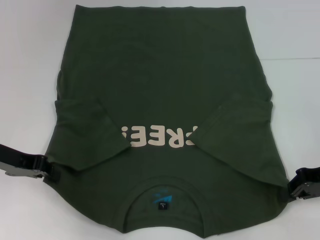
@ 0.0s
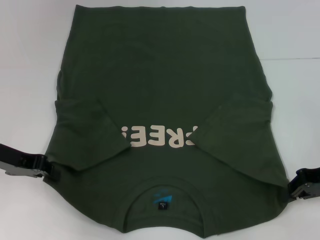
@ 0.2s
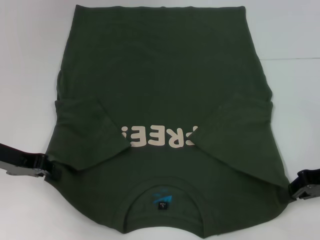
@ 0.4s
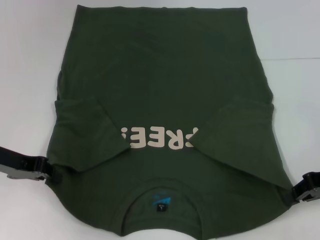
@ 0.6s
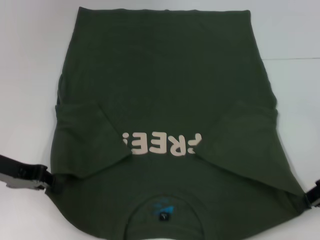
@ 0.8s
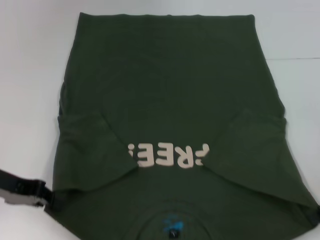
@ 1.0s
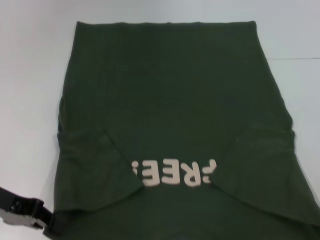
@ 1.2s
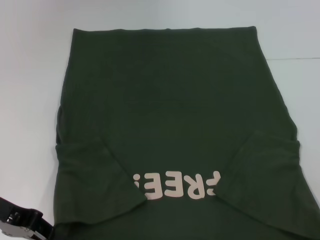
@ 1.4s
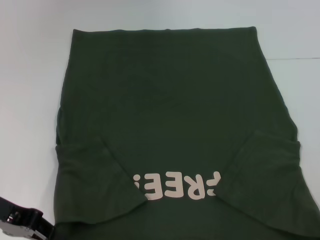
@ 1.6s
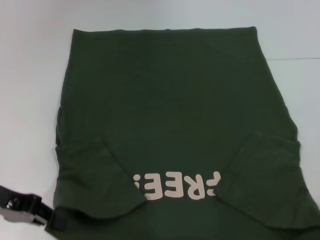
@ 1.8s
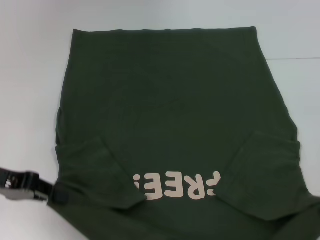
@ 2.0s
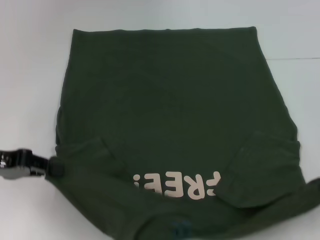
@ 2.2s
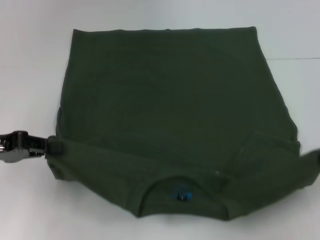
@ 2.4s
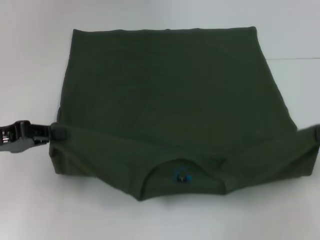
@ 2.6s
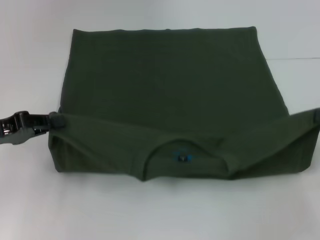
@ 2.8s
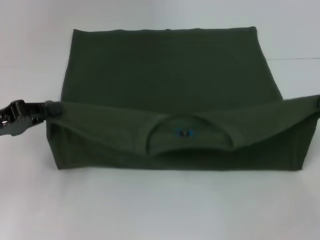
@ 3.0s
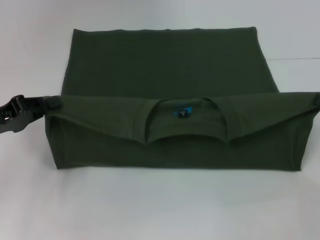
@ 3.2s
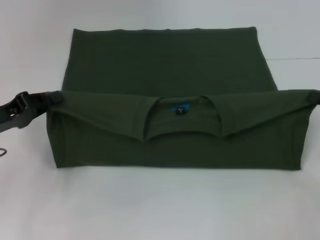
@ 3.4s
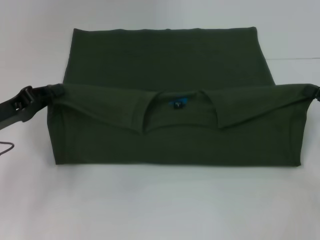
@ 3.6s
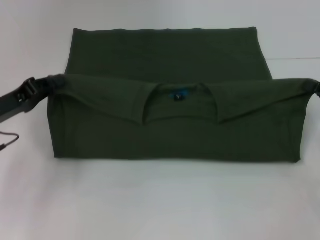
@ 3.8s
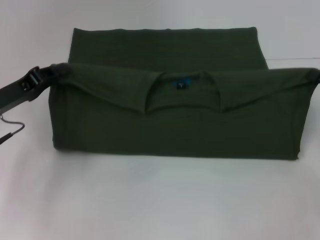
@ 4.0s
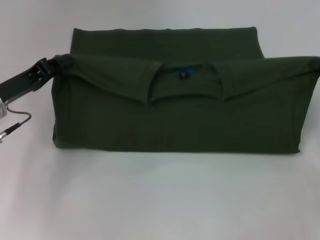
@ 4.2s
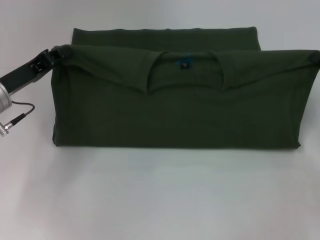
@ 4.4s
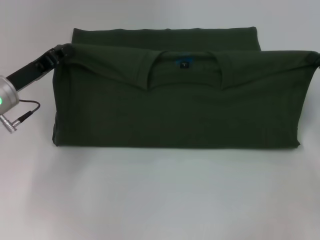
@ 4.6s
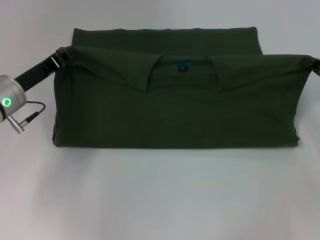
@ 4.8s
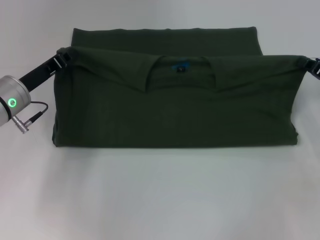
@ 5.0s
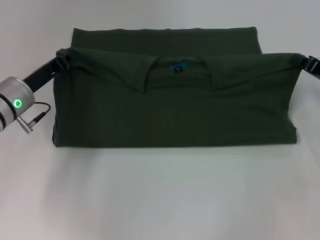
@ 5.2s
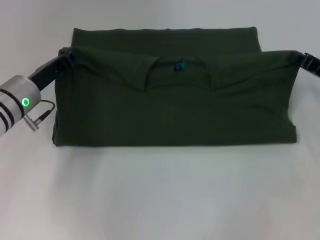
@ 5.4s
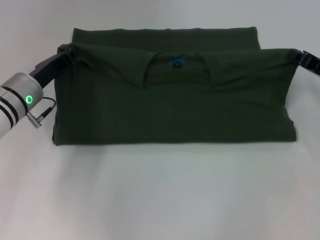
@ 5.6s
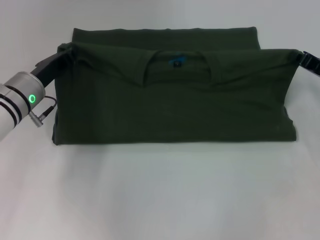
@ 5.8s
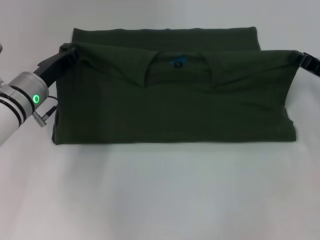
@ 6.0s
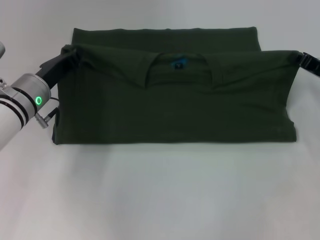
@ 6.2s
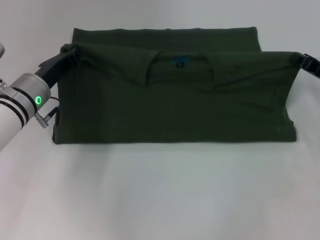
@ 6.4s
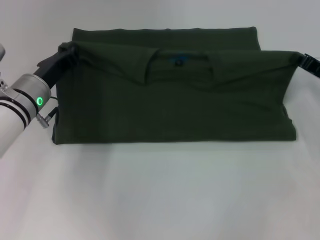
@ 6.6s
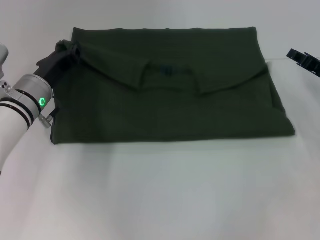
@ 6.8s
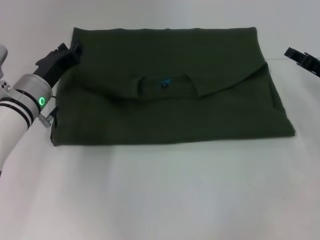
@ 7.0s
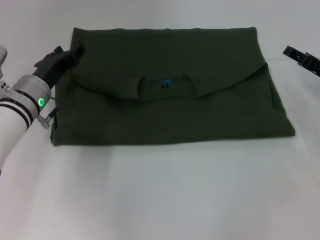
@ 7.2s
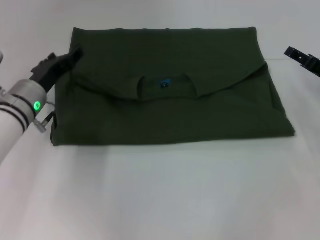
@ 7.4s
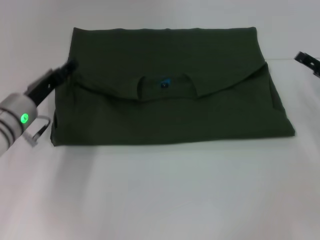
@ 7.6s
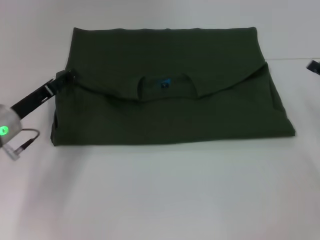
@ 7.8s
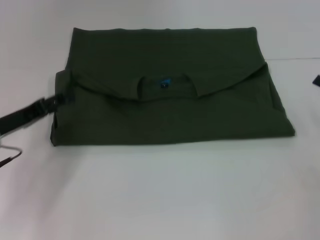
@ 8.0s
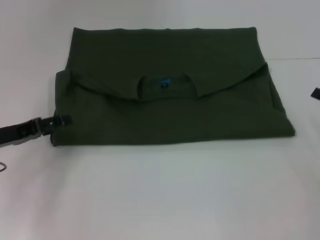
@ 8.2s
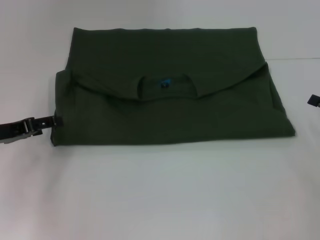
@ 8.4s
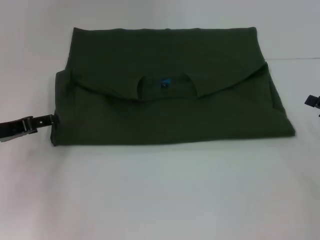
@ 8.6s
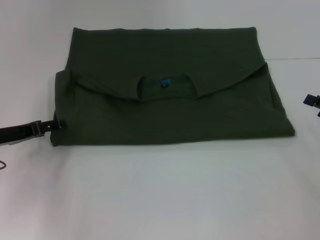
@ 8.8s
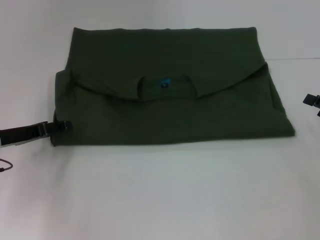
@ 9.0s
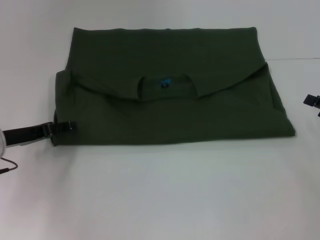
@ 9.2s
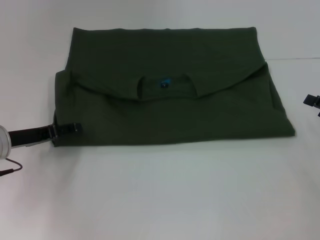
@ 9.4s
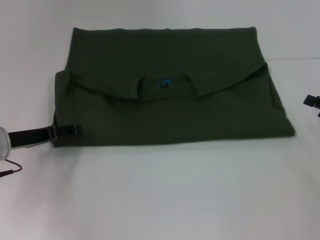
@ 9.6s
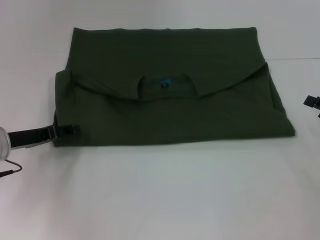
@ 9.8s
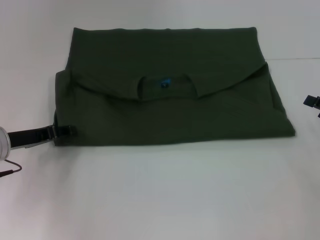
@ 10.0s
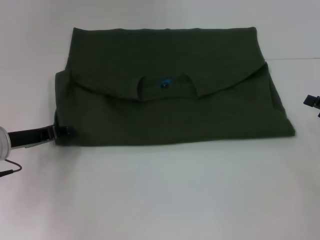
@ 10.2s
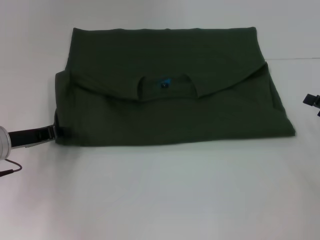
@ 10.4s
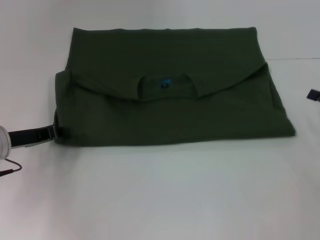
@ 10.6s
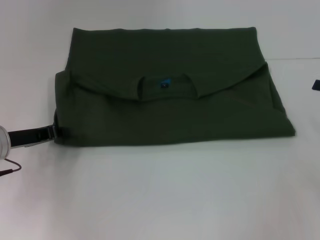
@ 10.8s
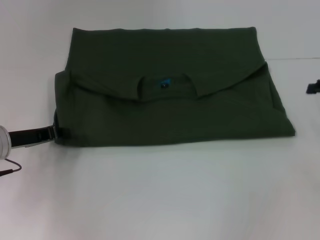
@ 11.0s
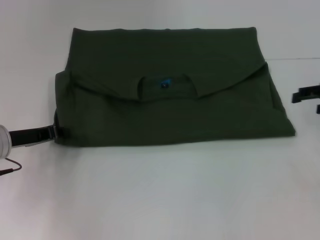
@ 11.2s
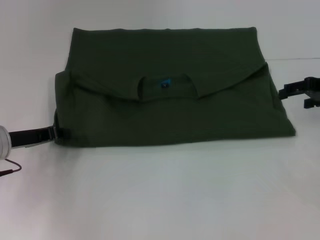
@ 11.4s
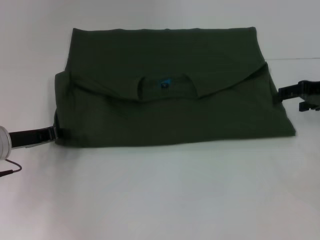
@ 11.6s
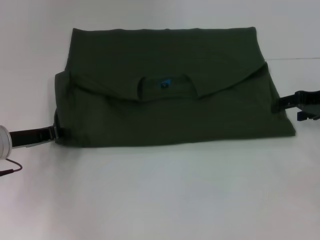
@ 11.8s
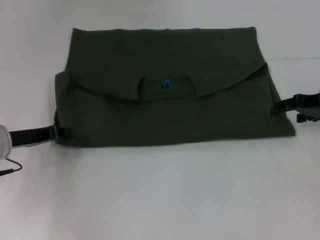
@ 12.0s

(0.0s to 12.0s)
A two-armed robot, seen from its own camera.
Step, 0.8s - 7.0s: Fold the clothes with your left hand.
Step, 0.8s - 7.0s: Fold the clothes with your right hand.
0.0s - 1.6s: The right gripper shifts by some 5 cm. Meanwhile the left gripper moves backward, roughly 5 cm.
1.6s - 3.0s: The right gripper shifts by about 5 cm.
3.0s - 4.4s: The right gripper shifts by approximately 5 cm; the left gripper is displaced forward and to the right by approximately 10 cm.
4.4s - 6.0s: The right gripper shifts by approximately 5 cm, while the left gripper moves to the right, approximately 5 cm.
6.0s - 7.6s: The right gripper opens its fingers, while the left gripper opens its fingers.
7.6s - 9.0s: The left gripper shifts about 5 cm to the left. The right gripper is displaced backward by approximately 5 cm.
9.0s - 10.4s: The left gripper closes its fingers.
10.4s - 12.0s: The right gripper shifts approximately 15 cm forward, upward and to the left.

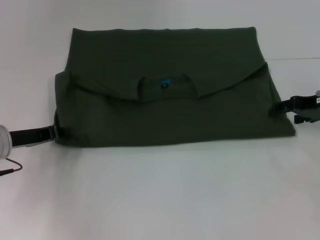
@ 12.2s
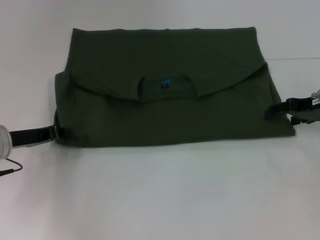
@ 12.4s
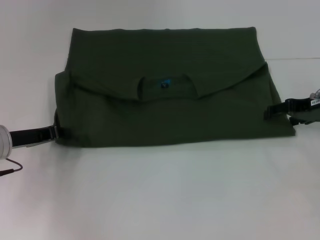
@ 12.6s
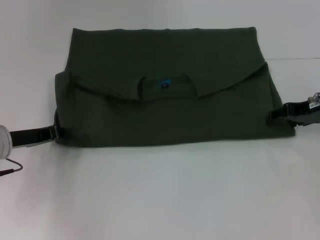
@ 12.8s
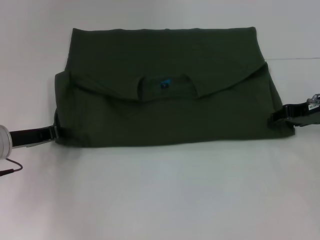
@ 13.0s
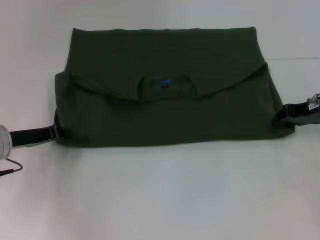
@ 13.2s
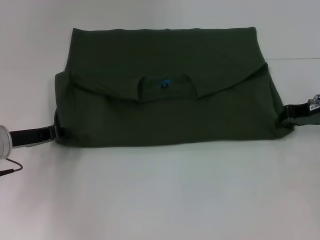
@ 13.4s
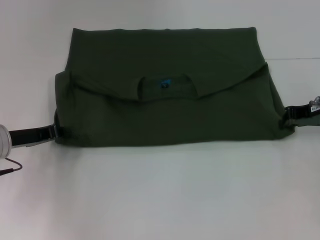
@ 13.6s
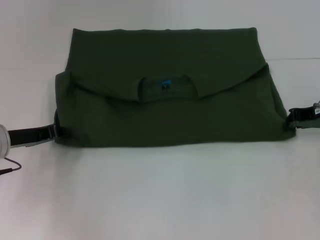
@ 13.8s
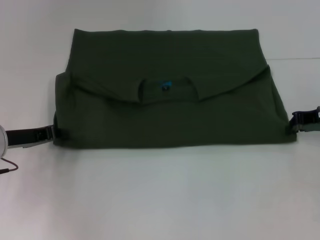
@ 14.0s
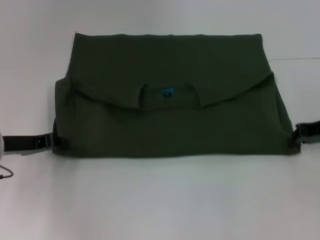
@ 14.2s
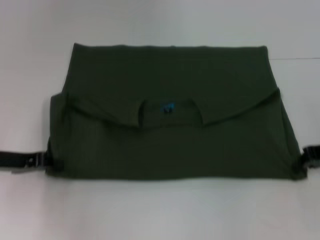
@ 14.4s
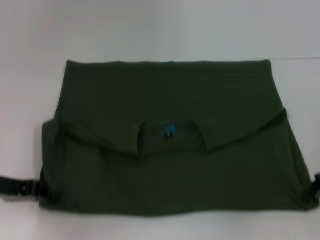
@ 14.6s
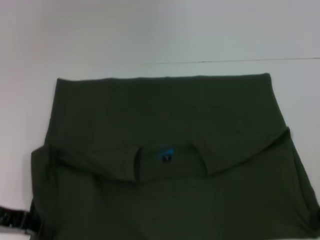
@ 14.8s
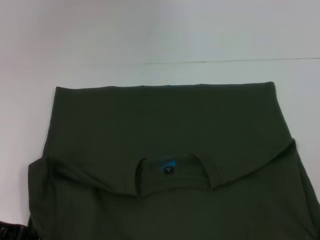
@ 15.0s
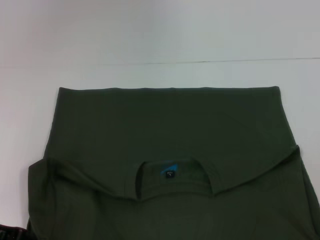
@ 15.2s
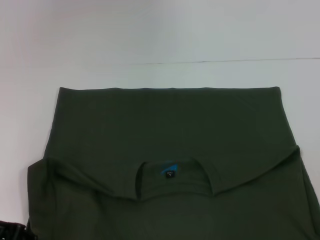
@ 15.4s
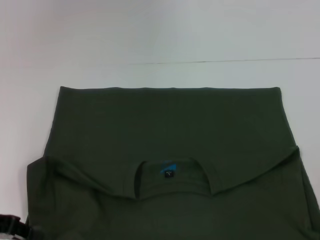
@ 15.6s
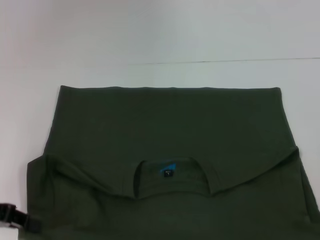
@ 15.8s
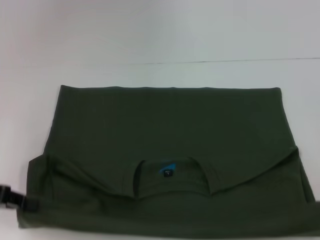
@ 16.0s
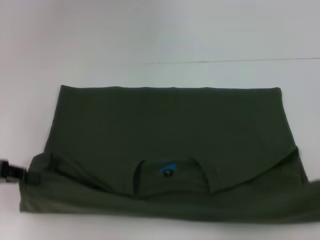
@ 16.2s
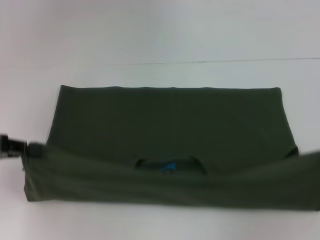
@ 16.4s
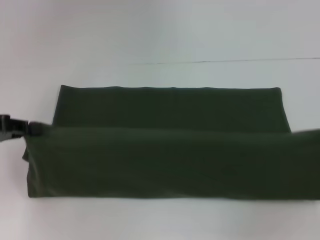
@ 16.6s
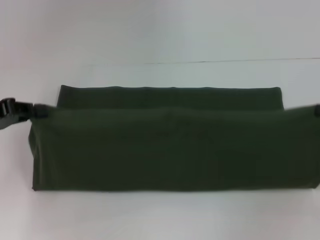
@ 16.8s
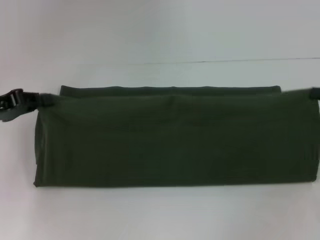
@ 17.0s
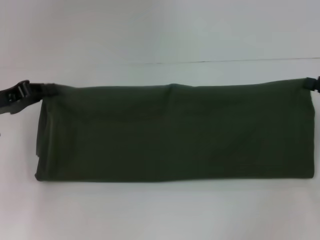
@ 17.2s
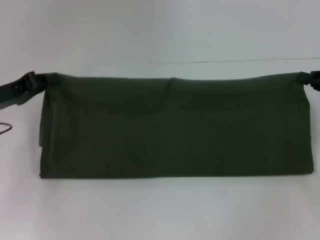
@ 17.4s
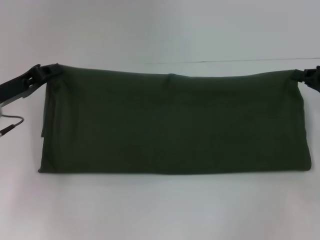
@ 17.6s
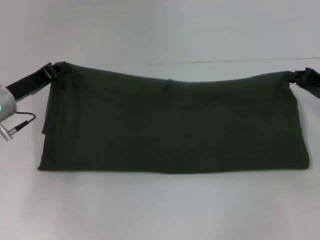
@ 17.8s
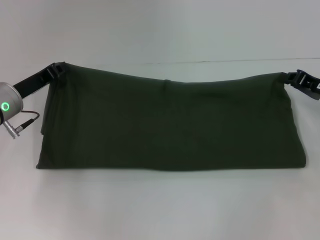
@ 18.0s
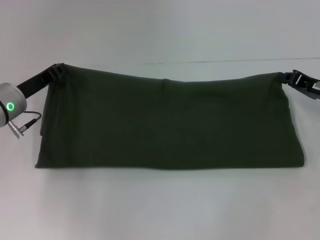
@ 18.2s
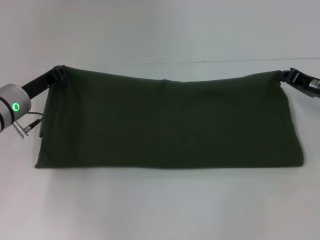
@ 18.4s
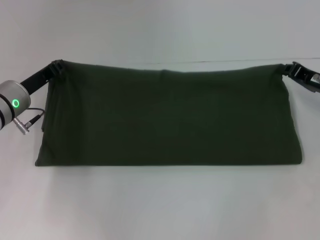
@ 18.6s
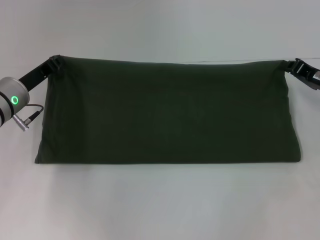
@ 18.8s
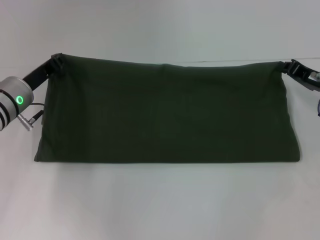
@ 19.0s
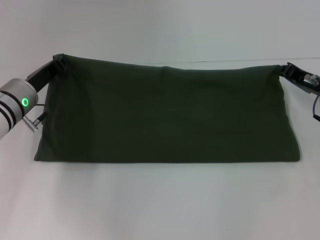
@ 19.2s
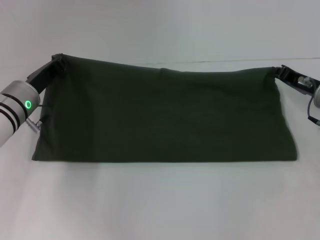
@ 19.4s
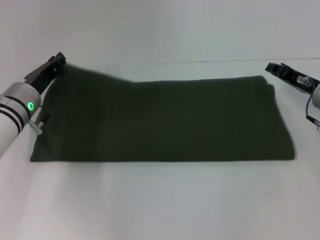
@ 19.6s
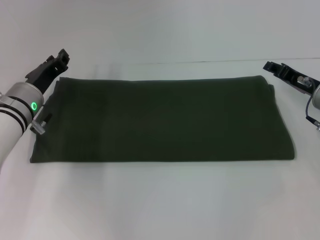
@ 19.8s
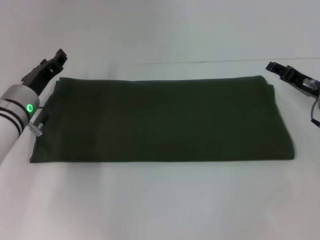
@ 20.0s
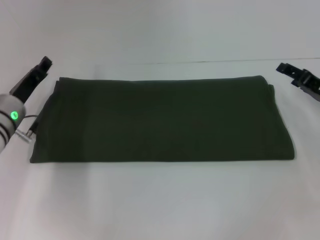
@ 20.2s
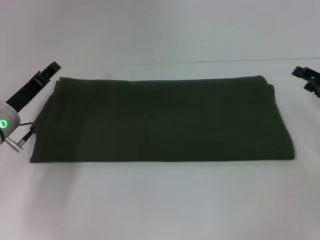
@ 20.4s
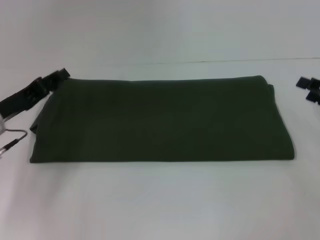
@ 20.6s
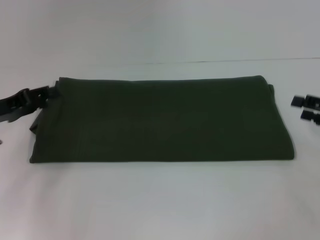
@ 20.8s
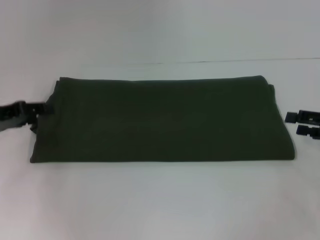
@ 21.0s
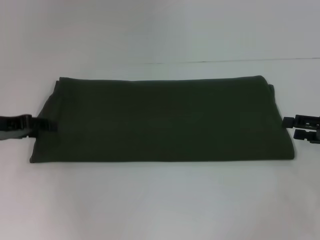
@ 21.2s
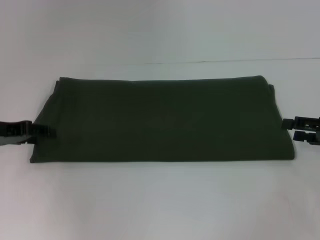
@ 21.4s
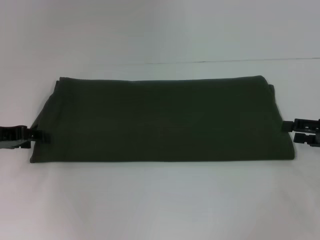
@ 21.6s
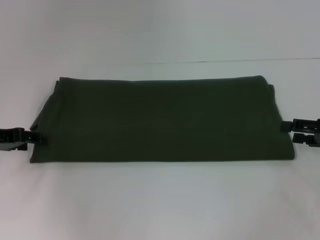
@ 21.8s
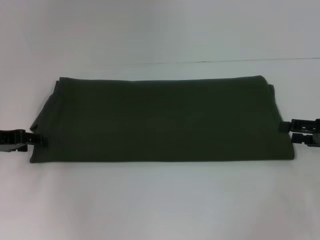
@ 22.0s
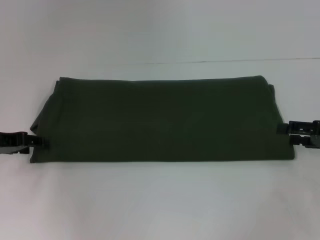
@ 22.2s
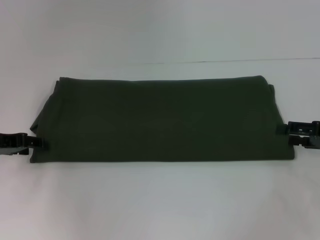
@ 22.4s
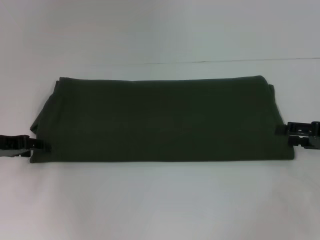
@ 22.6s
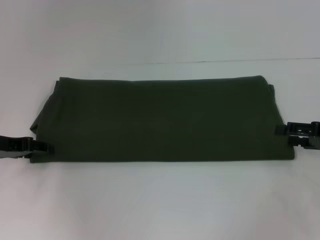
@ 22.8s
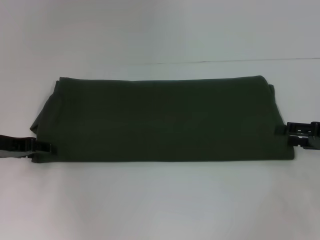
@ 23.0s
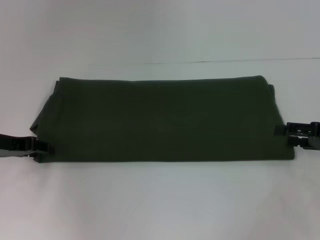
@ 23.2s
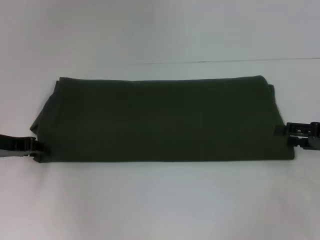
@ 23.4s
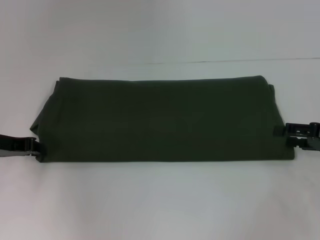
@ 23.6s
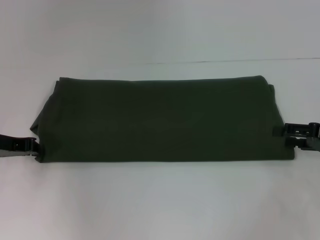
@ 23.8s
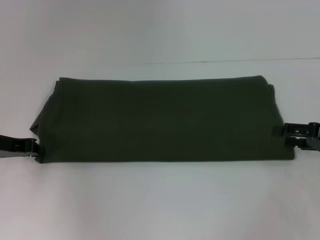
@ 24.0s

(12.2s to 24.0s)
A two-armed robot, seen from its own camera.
Step, 12.2s - 15.4s: Pull the clothes with your left hand.
Step, 12.2s - 15.4s: Pull the clothes with your right hand.
Step, 15.6s - 19.6s: Fold the clothes with your right hand.
12.2s - 13.6s: The right gripper closes its fingers.
13.6s - 15.2s: The two grippers go roughly 10 cm backward.
15.2s - 16.6s: The right gripper is displaced upward by roughly 5 cm. Meanwhile the left gripper heads forward and upward, covering roughly 10 cm.
16.6s - 18.2s: The left gripper shifts approximately 15 cm to the right, forward and downward. Meanwhile the right gripper heads to the left, downward and forward, covering some 15 cm.
18.2s - 19.6s: The grippers stay close to where they were, moving slightly.
19.6s - 21.0s: The left gripper goes about 10 cm to the left and upward, and opens up, while the right gripper shifts some 10 cm to the right and backward, and opens.
21.0s - 22.6s: The grippers stay close to where they were, moving slightly.
